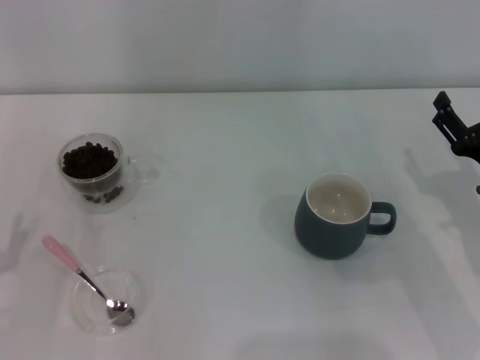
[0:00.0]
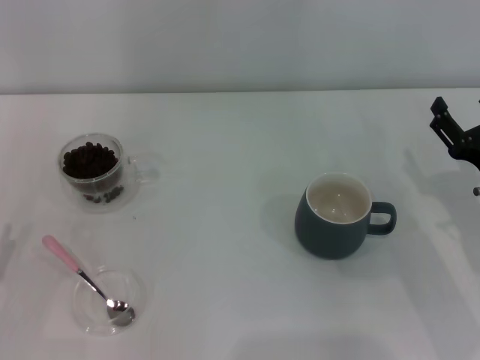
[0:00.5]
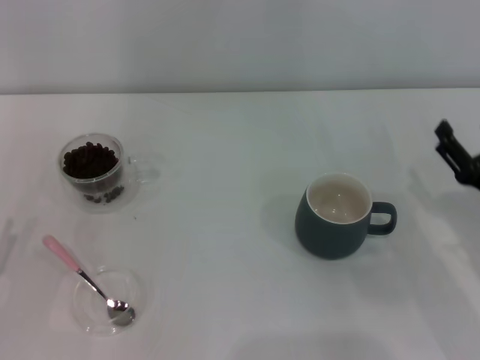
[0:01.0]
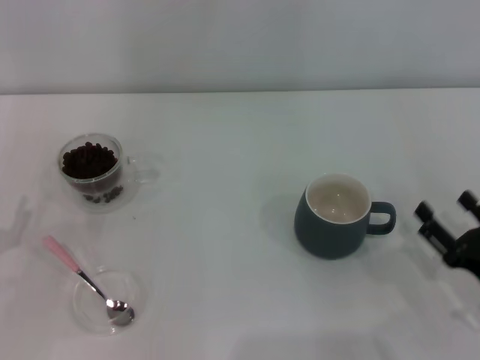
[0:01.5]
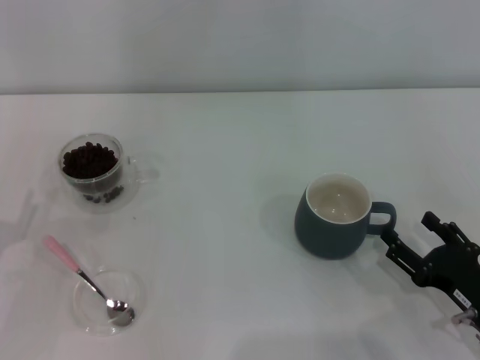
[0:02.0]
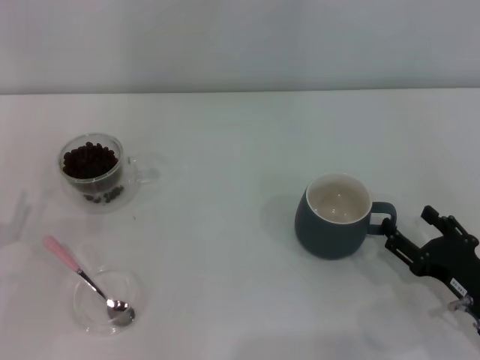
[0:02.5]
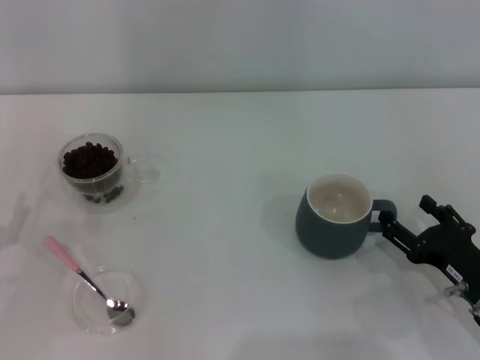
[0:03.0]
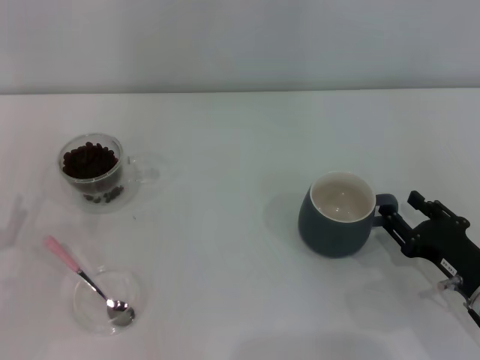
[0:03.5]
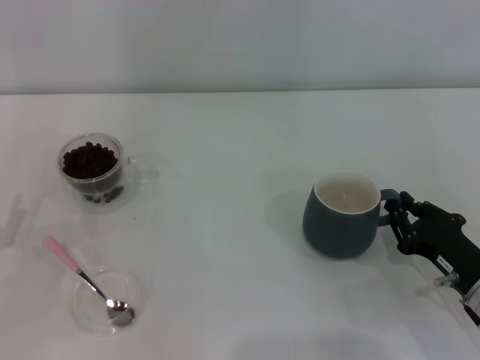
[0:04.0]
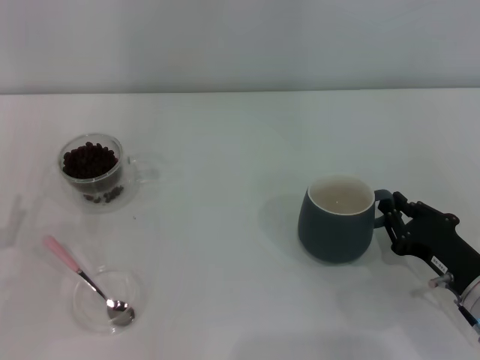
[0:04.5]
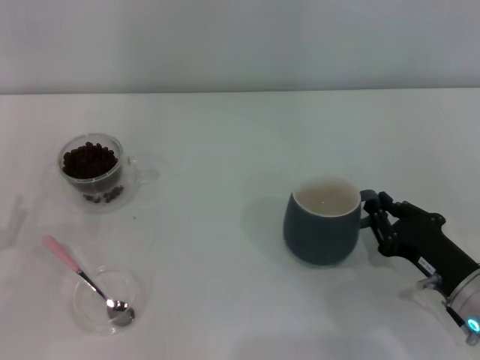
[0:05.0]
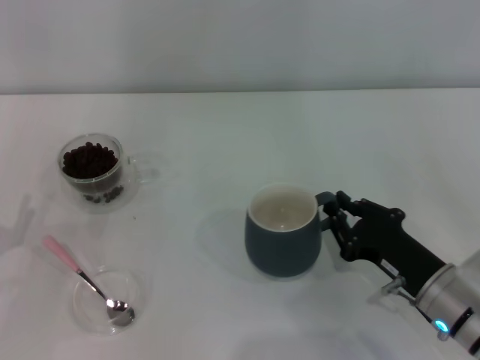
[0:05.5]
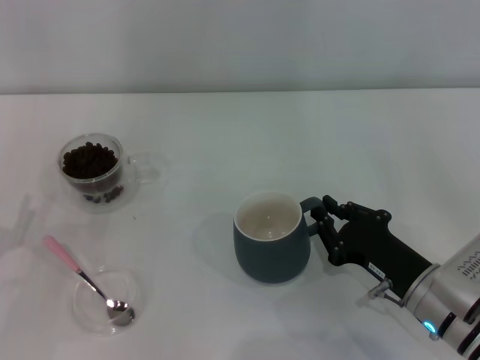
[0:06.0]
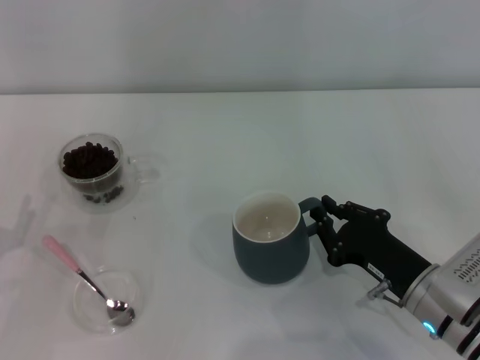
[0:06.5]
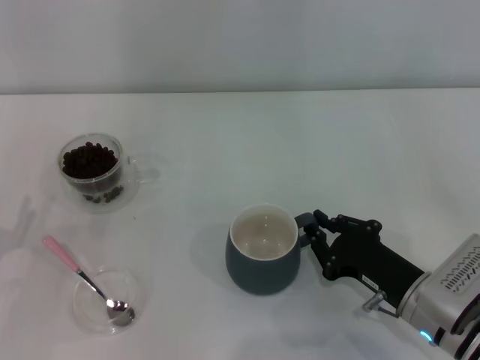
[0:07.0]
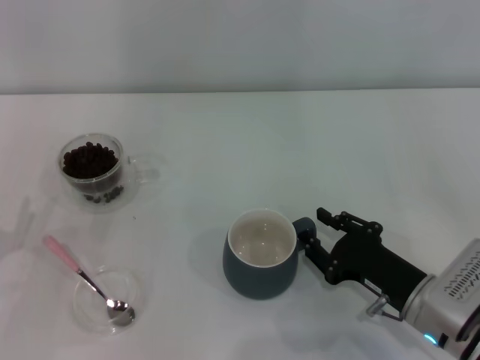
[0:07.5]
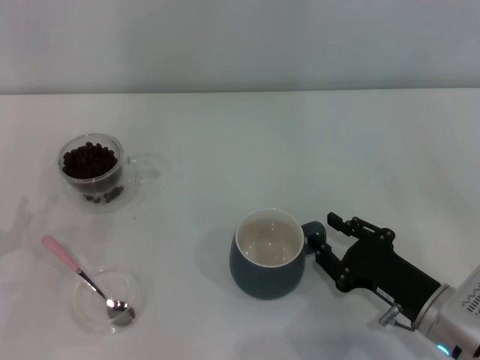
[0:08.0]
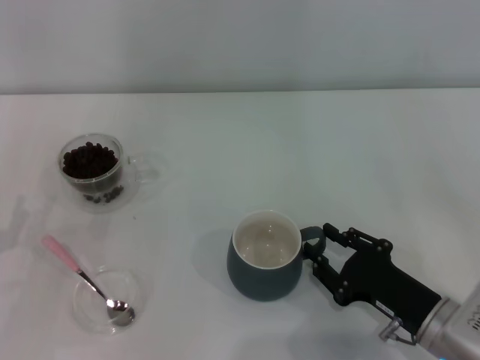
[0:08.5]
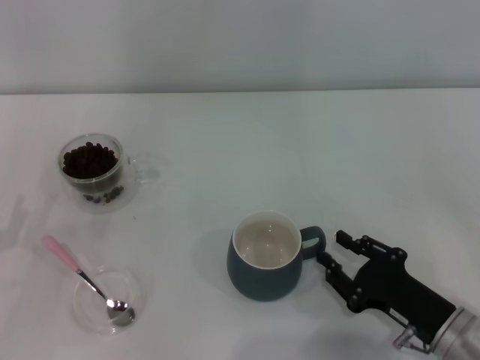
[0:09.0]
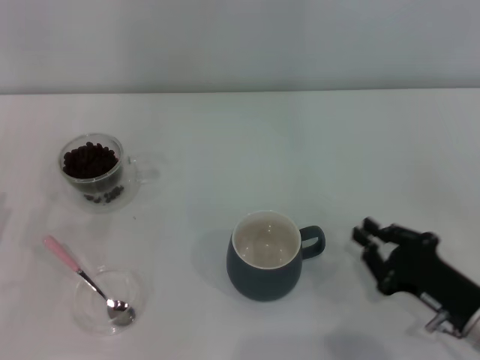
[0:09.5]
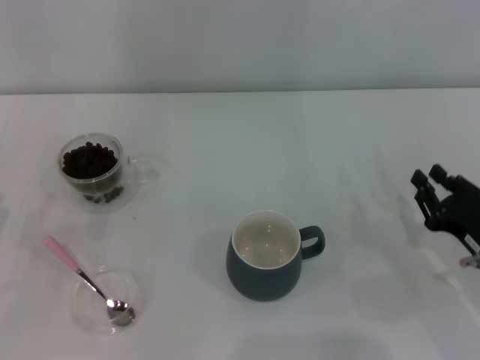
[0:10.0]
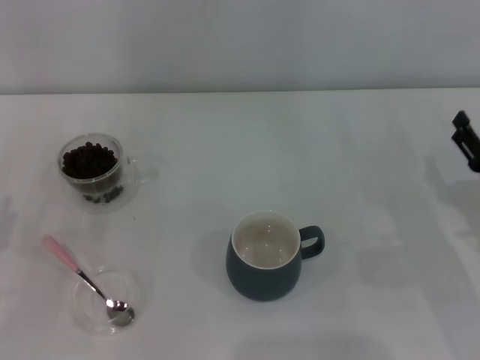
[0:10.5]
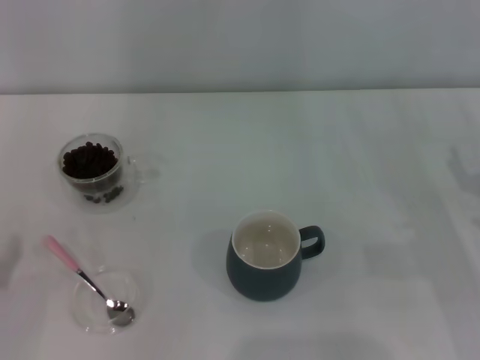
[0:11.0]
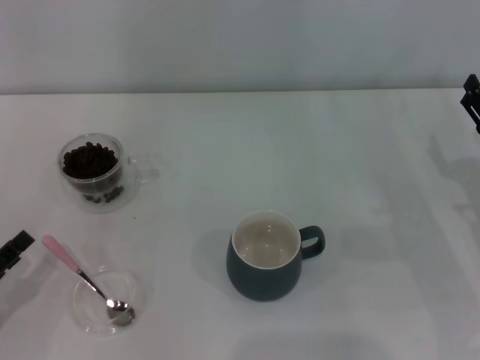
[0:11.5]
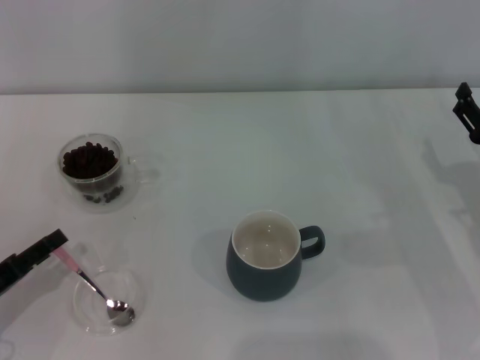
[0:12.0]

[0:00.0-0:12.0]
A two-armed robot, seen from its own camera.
Task of the whole recording: Use a pink spoon to take out the coffee beans from the glass and pour them into the gray cup.
Step, 0:00.0 to 0:09.0: Move the cup to the center of view with the left gripper.
0:00.0 to 0:02.0: The right gripper shifts roughly 10 cm backward and downward.
0:02.0 to 0:04.0: The right gripper closes up.
0:04.0 to 0:06.0: The right gripper shifts roughly 5 cm to the left.
0:06.0 to 0:08.0: The right gripper opens.
0:08.0 to 0:10.0: The right gripper travels to the right by about 5 cm.
0:10.0 to 0:12.0: The right gripper heads forward, covering about 5 cm, and opens up.

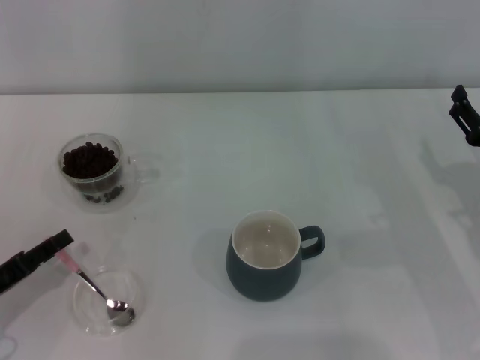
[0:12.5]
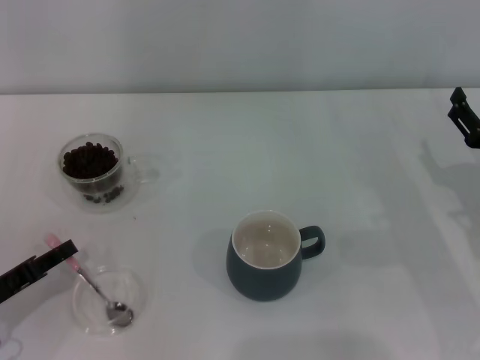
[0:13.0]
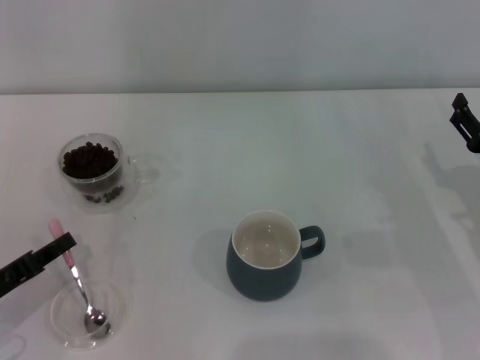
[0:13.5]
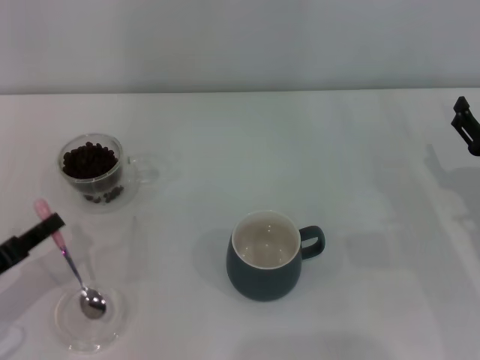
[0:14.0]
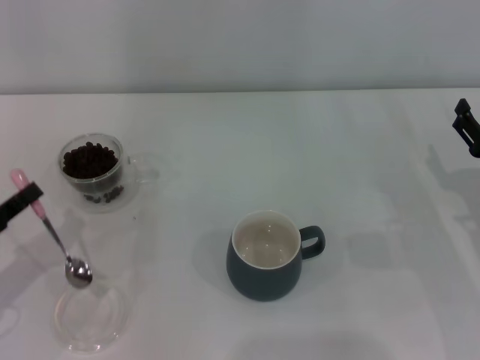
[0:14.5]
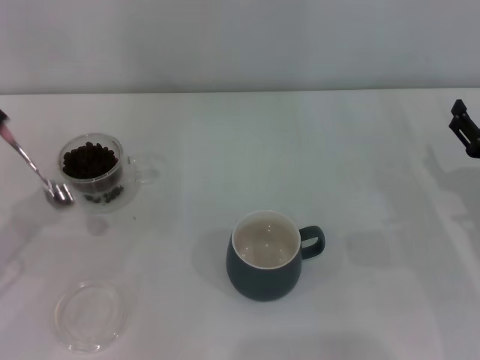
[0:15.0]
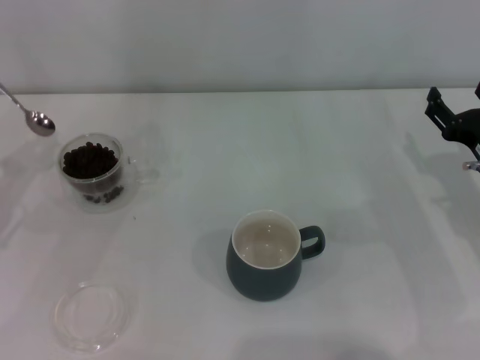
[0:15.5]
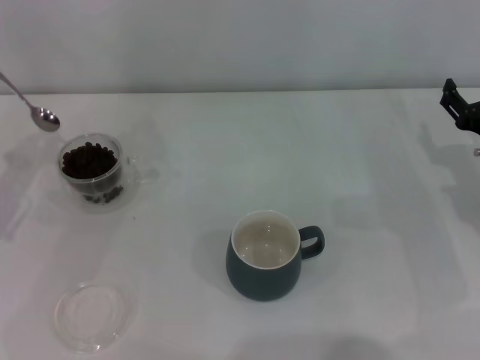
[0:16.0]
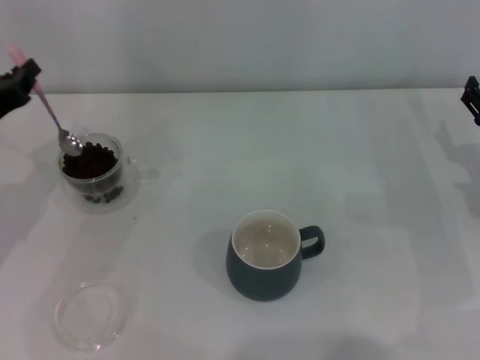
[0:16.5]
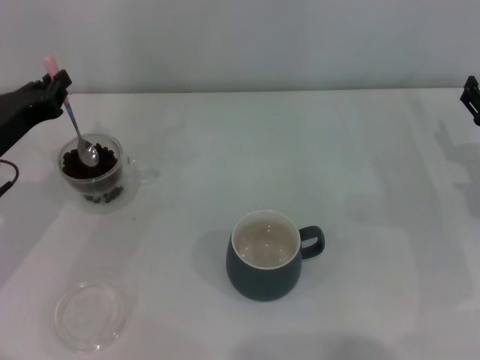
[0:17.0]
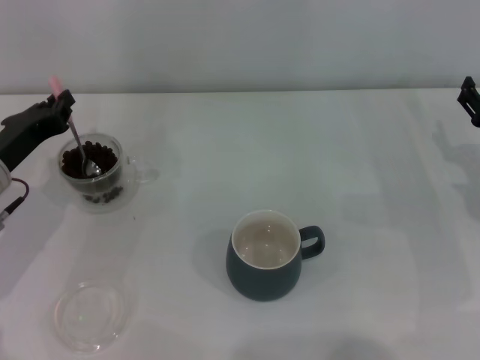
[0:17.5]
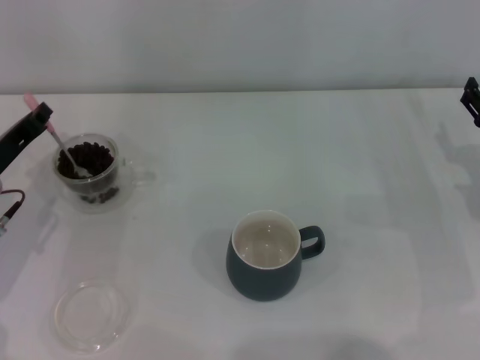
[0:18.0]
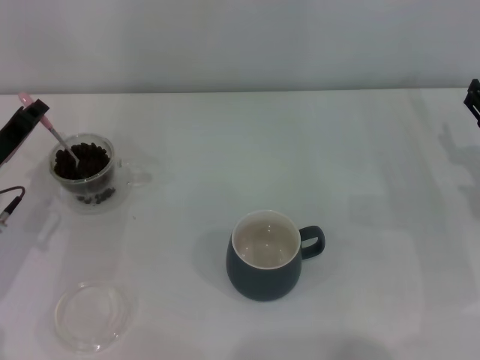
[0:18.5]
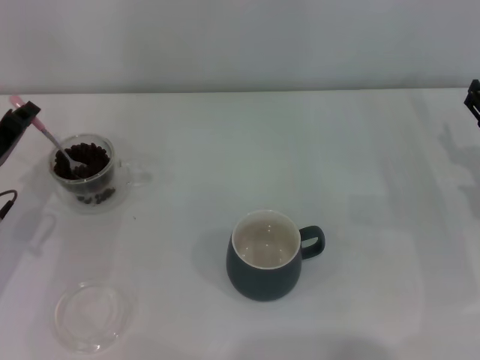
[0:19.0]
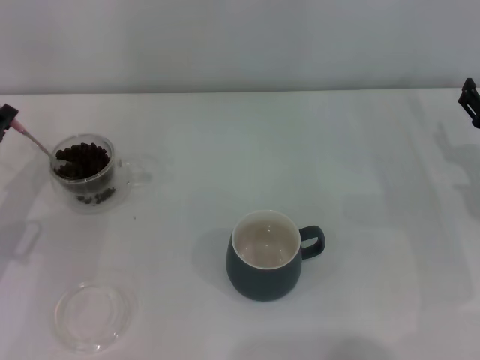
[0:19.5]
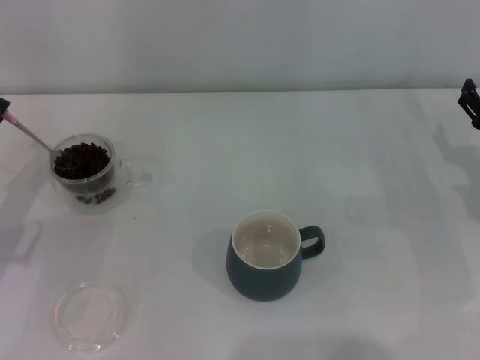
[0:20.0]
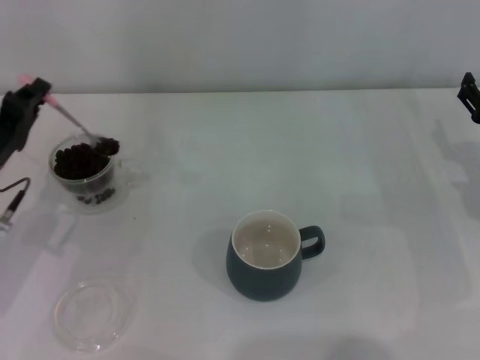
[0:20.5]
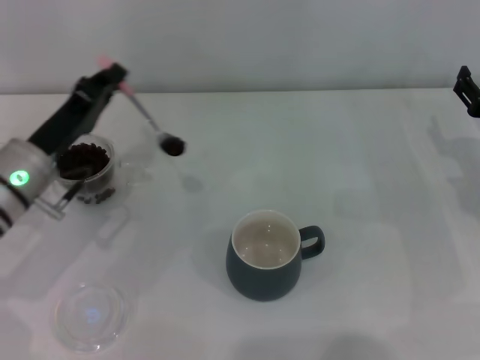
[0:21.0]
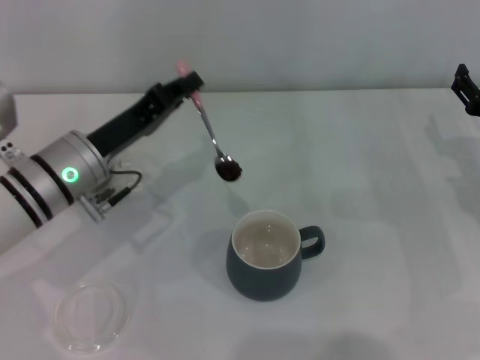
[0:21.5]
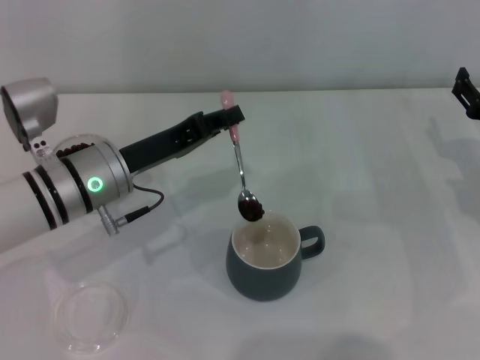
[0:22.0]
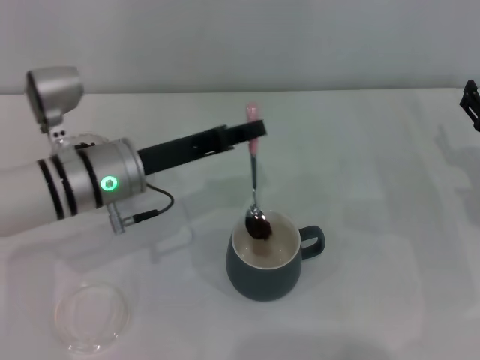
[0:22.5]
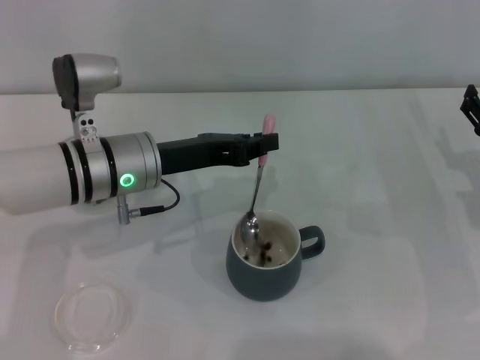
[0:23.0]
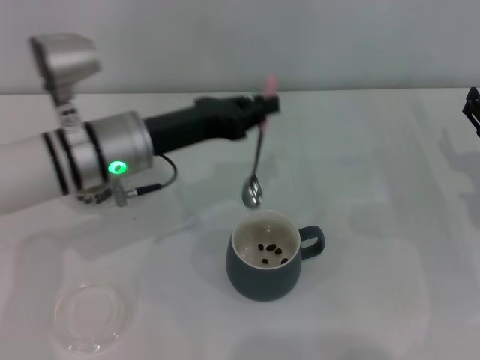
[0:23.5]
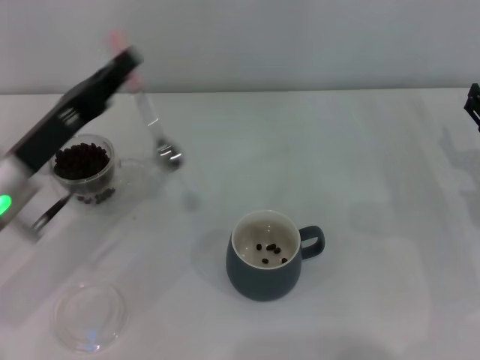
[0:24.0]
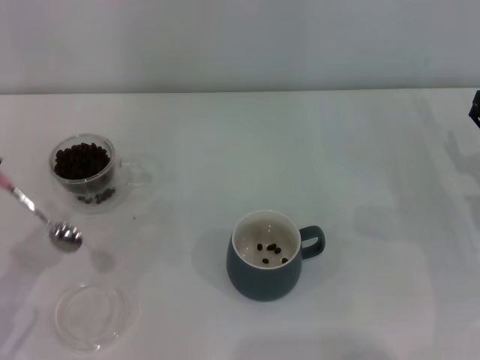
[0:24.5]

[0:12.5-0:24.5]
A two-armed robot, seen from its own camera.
Task of the whole recording: Use a pink spoon to take out the coffee beans from the glass and pour them into the gray cup.
Step, 0:12.5 to 0:14.5: Pick up the spoon with the right gripper.
Step, 0:15.0 to 0:23.0: Scoop a spoonful of beans into the cup with the right gripper.
0:12.5 to 0:14.5: The left gripper closes its fingers.
0:14.5 to 0:16.5: The left gripper moves forward, roughly 10 cm.
0:18.5 to 0:20.5: The grippers stay close to where they were, moving slightly.
0:20.5 to 0:22.5: The left gripper moves to the right, about 15 cm.
0:22.5 to 0:24.5: The left gripper heads to the left and backward, covering some 20 cm.

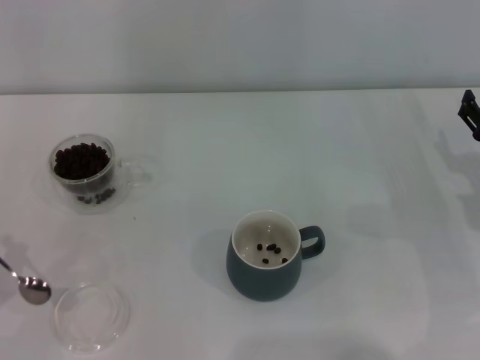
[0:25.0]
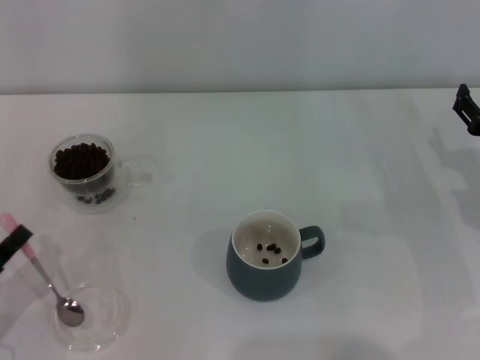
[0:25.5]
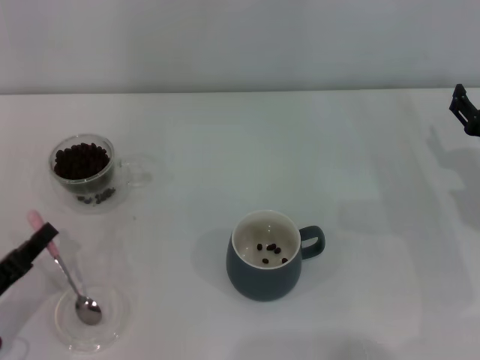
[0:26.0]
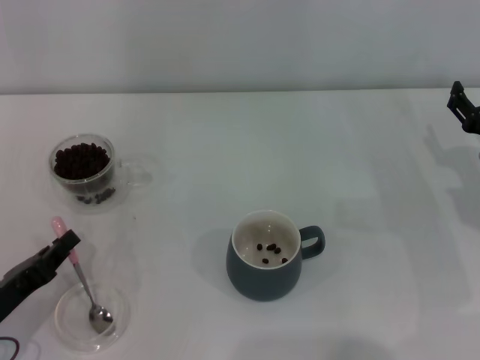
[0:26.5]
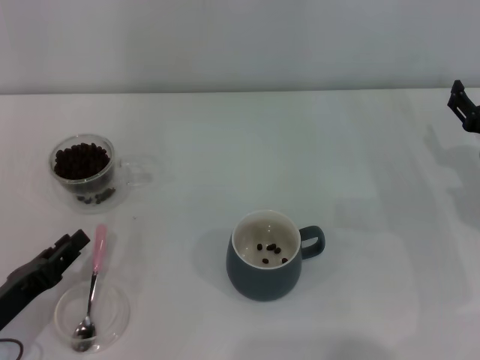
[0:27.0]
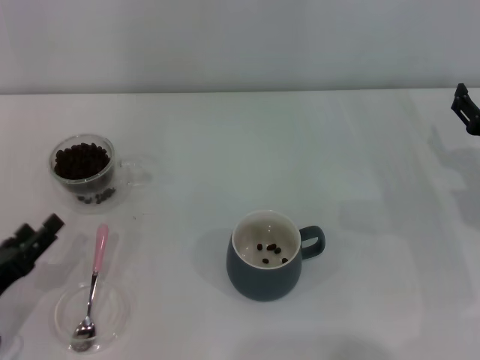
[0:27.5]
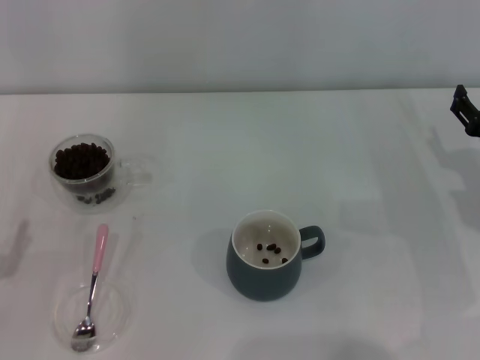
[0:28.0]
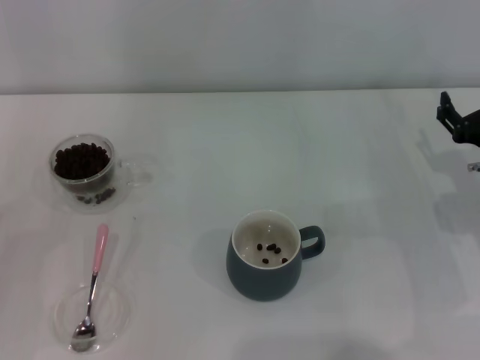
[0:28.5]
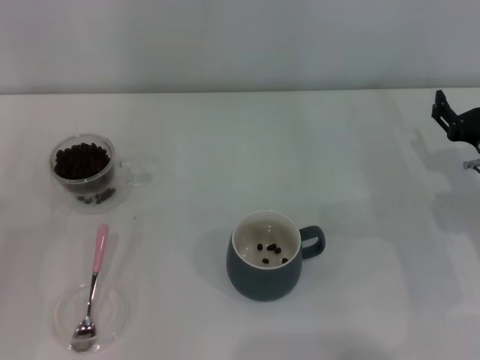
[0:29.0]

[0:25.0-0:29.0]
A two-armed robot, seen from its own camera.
Task of the whole recording: Use a pink spoon to take out the coffee beans from the glass and pour them into the gray cup.
Step, 0:25.0 to 0:27.0: Place the spoon back in its original place with the right gripper.
0:25.0 to 0:27.0: The left gripper changes place by approximately 5 cm.
0:27.0 to 0:29.0: The left gripper goes roughly 5 cm to the left, and opens up.
